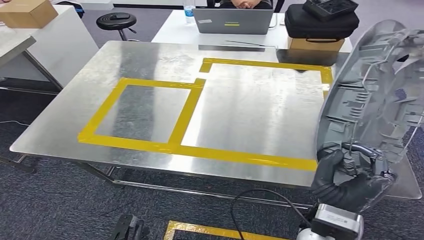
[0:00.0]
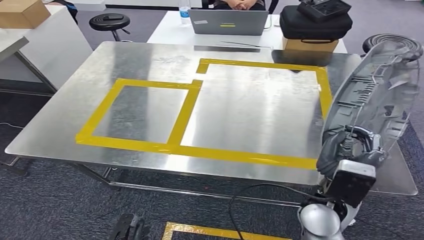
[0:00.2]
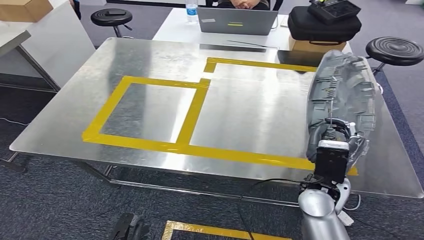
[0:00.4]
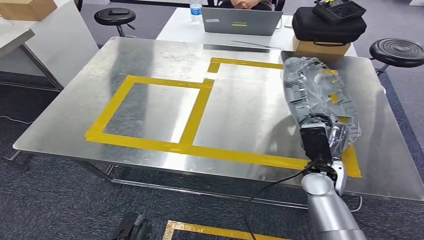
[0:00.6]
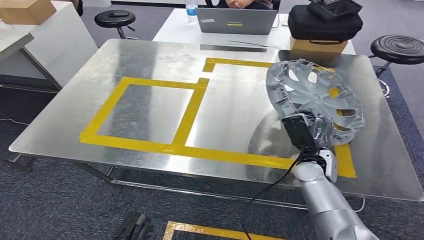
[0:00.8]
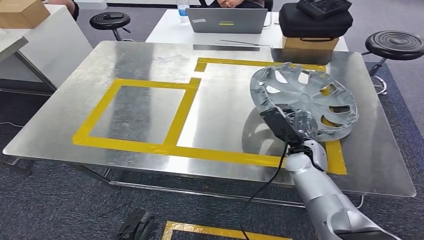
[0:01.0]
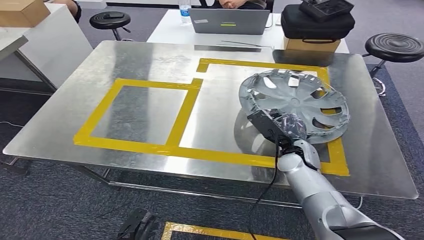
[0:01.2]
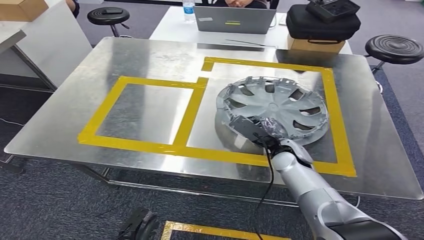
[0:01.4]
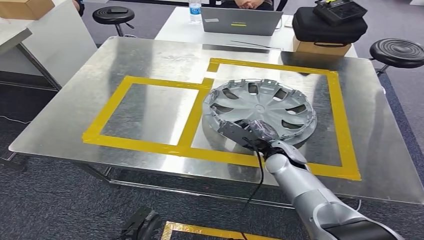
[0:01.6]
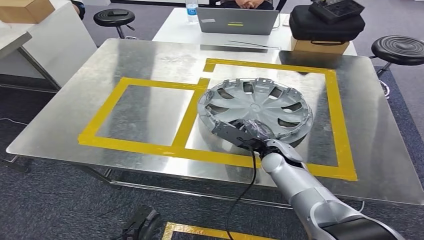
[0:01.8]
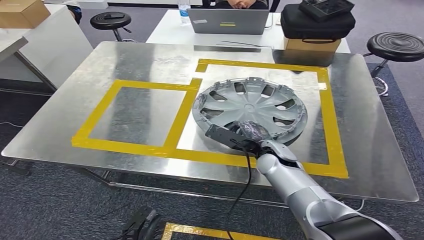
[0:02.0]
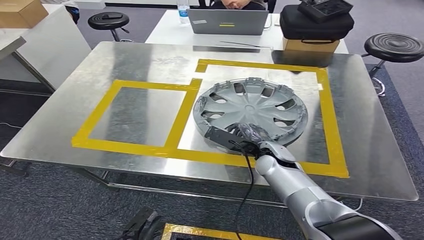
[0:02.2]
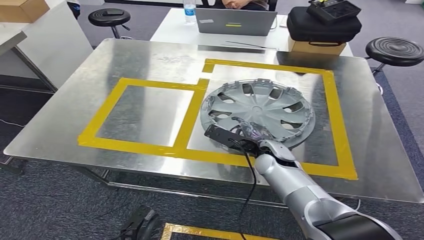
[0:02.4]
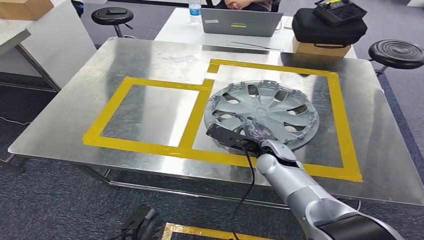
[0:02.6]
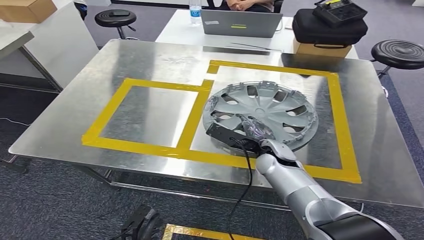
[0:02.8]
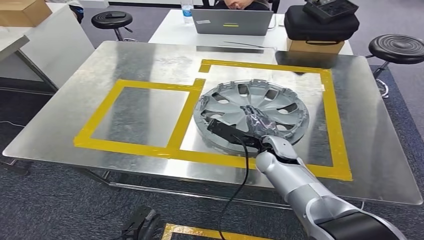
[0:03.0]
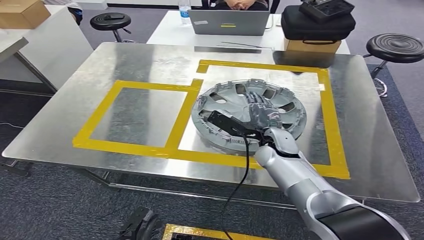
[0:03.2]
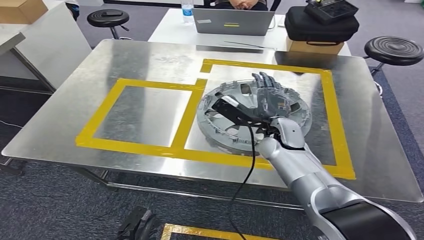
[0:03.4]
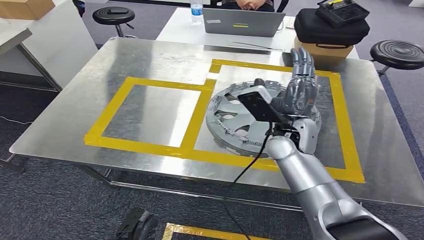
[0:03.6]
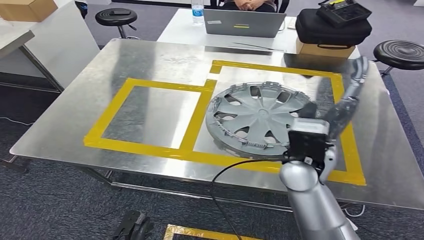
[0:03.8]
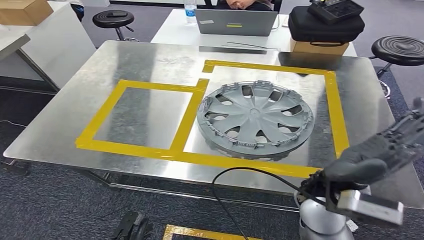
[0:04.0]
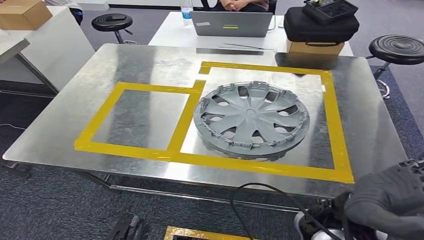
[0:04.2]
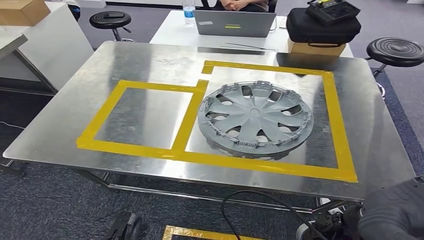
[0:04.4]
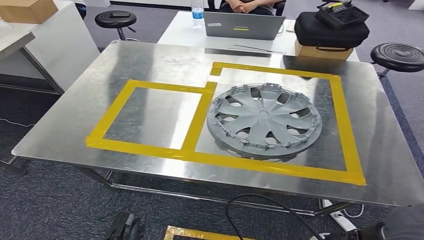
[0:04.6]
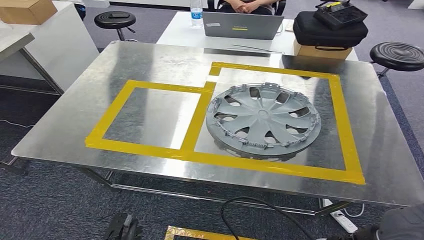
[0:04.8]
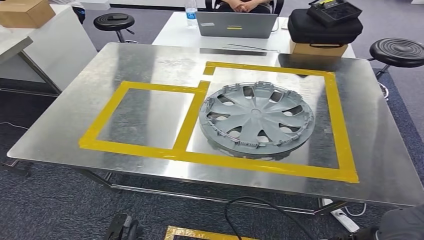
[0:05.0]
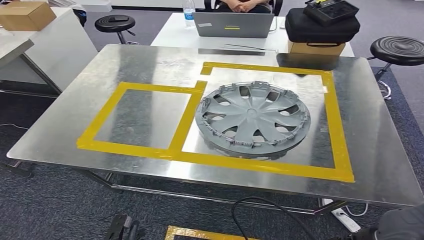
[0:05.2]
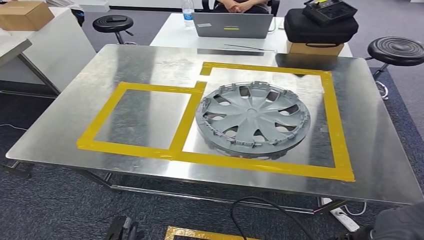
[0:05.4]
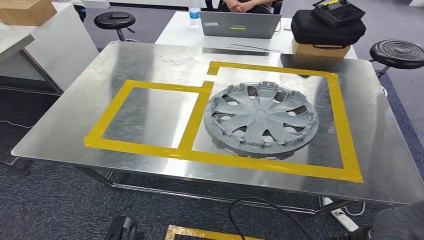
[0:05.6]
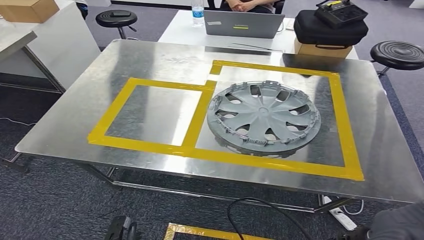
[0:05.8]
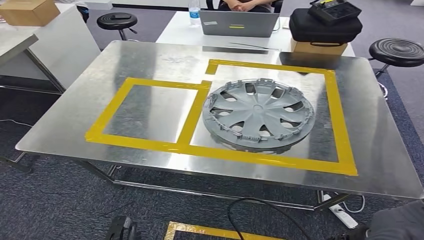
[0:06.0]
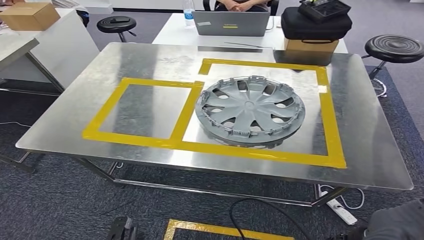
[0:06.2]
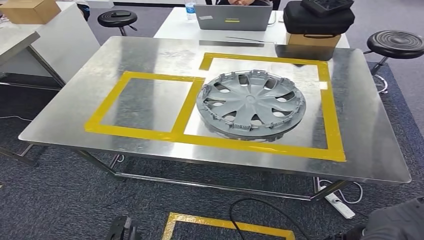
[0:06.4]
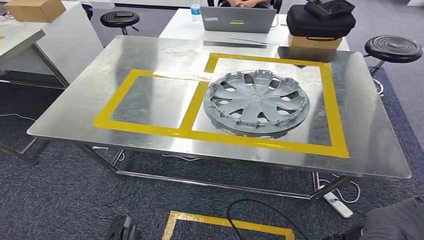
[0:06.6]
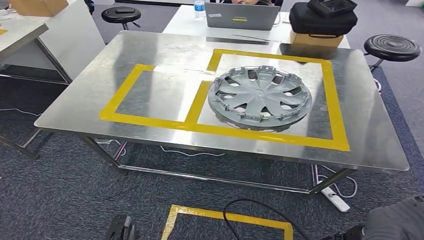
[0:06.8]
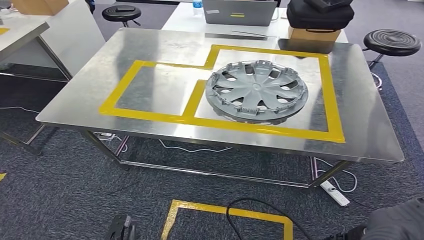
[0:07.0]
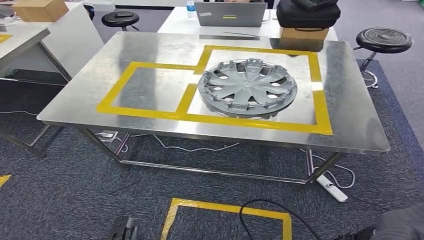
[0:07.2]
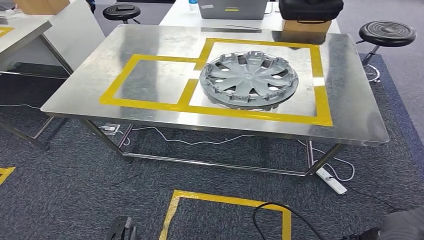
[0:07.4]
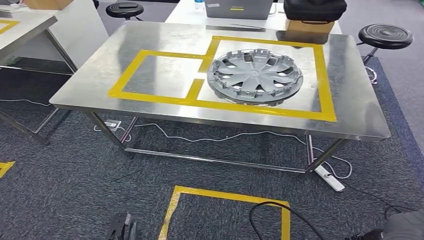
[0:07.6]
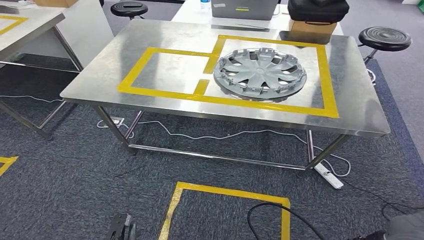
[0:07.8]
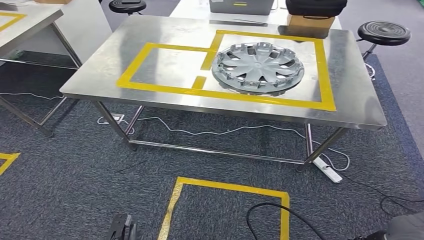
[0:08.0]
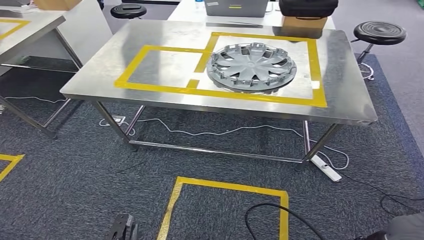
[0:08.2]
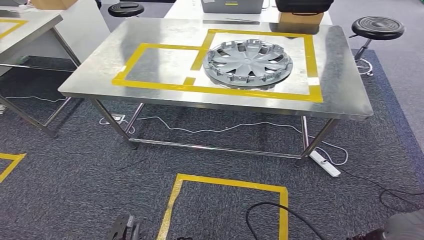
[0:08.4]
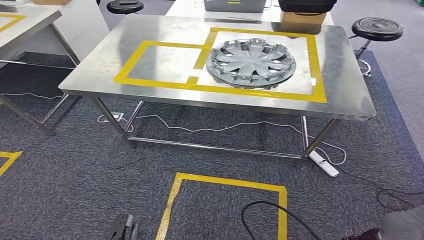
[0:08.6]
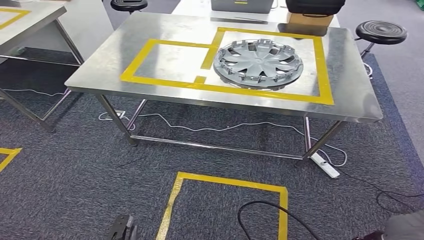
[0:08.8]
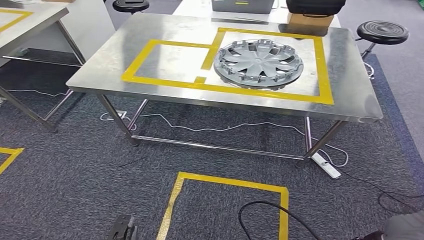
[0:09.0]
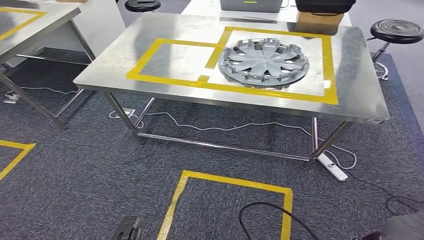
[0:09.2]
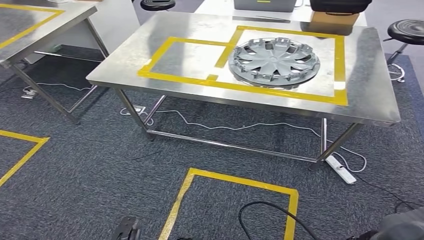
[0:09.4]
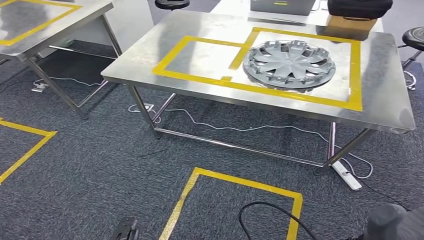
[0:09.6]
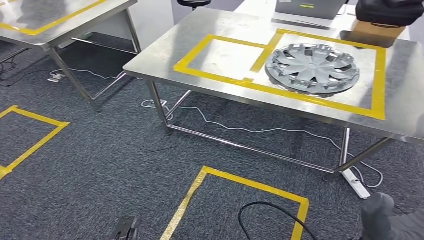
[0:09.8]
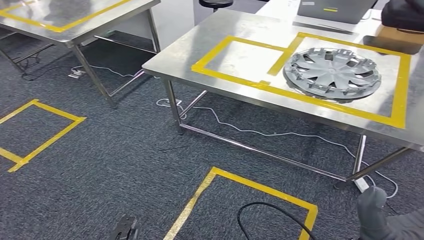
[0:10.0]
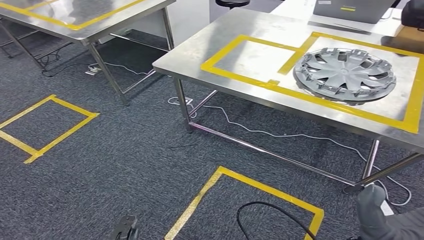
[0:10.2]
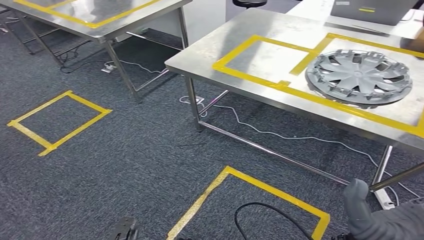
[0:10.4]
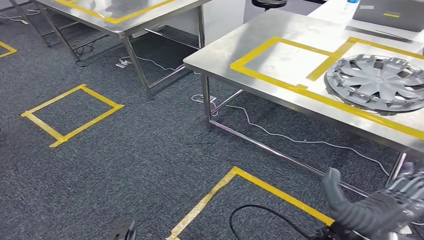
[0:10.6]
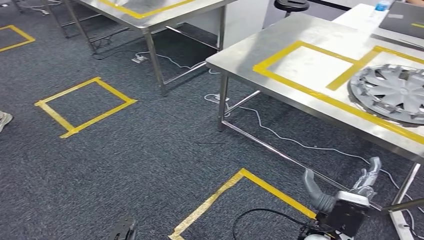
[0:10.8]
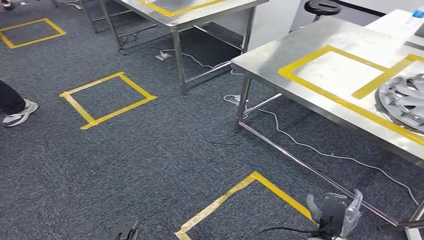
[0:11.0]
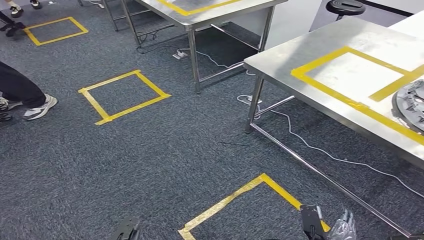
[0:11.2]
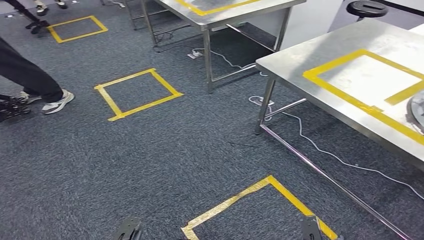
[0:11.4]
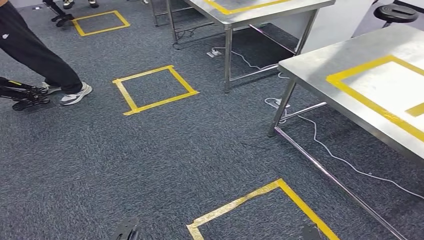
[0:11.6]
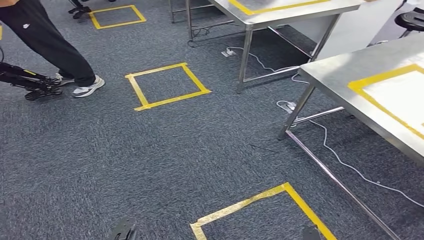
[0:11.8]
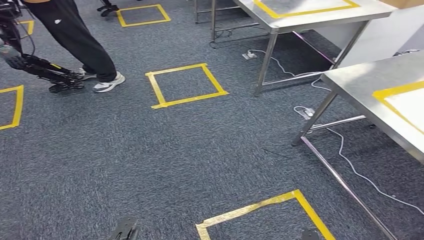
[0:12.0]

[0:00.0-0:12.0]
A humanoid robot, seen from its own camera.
Step, 0:00.0 to 0:04.2: Insert the small parts into the corresponding holes on the workbench.

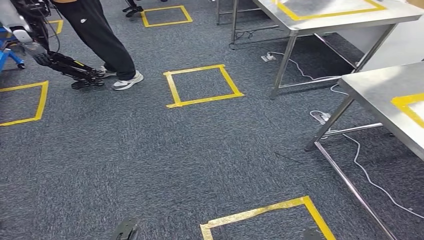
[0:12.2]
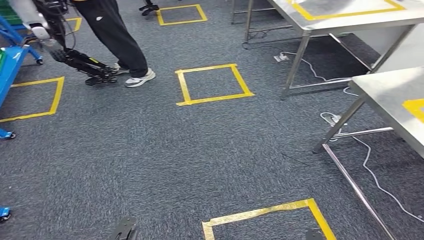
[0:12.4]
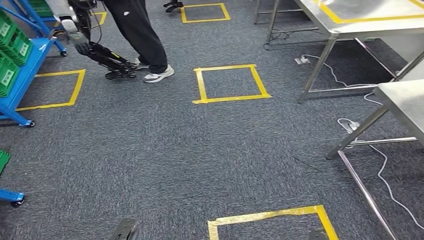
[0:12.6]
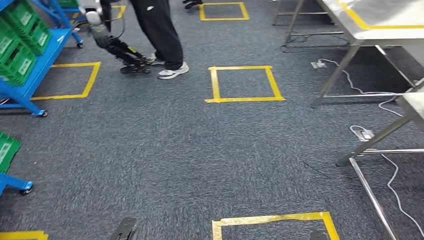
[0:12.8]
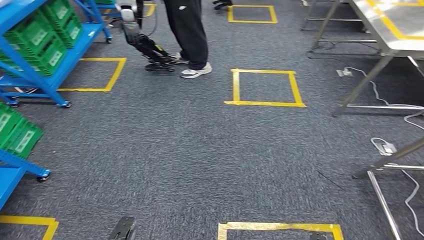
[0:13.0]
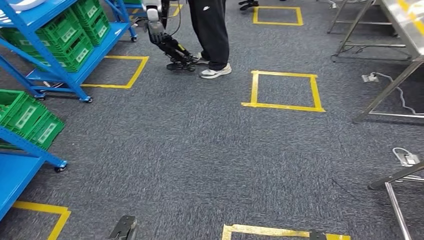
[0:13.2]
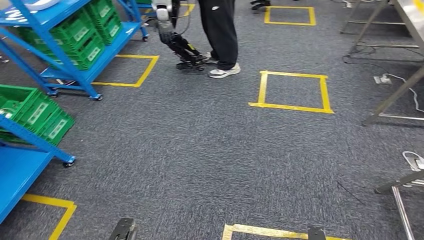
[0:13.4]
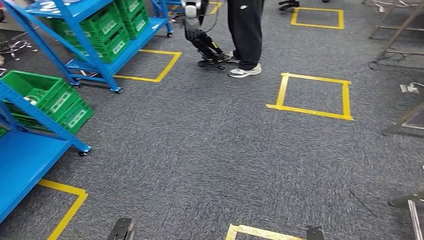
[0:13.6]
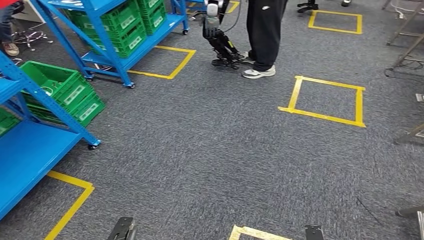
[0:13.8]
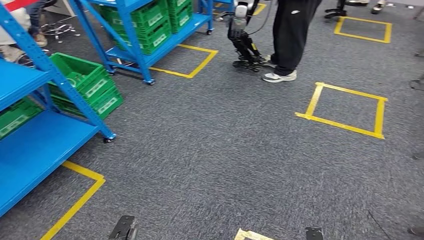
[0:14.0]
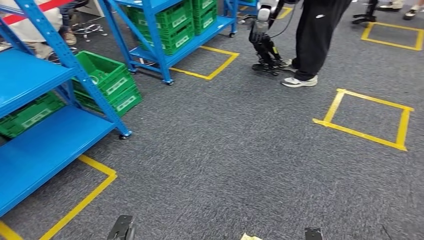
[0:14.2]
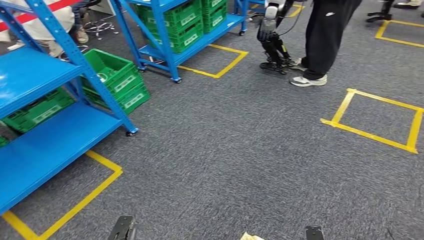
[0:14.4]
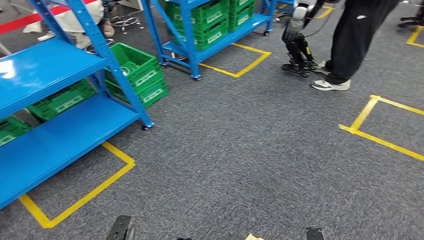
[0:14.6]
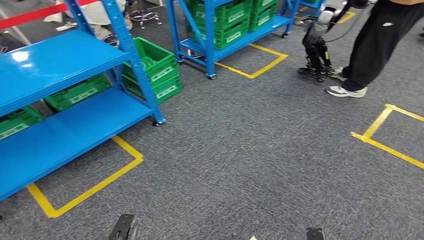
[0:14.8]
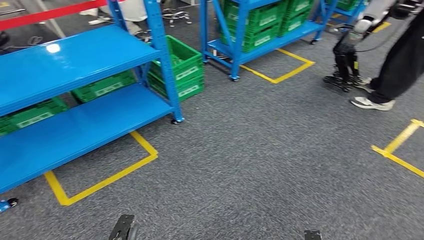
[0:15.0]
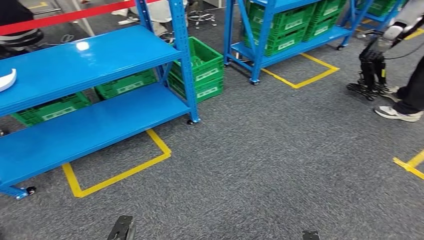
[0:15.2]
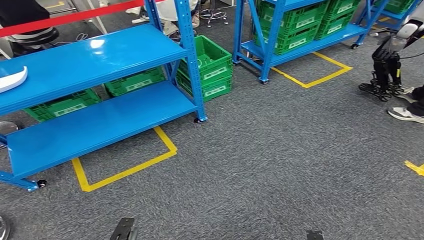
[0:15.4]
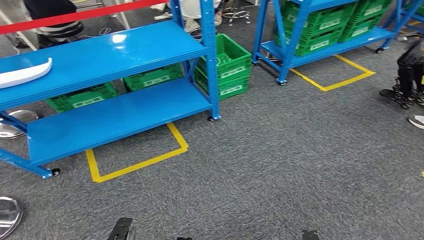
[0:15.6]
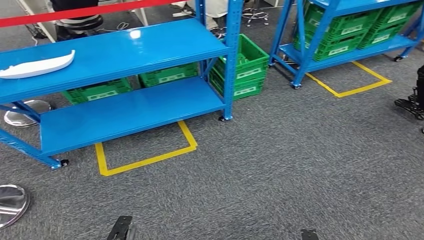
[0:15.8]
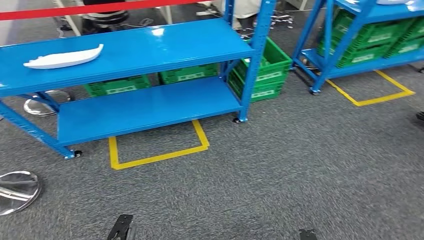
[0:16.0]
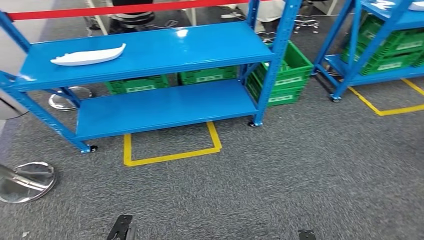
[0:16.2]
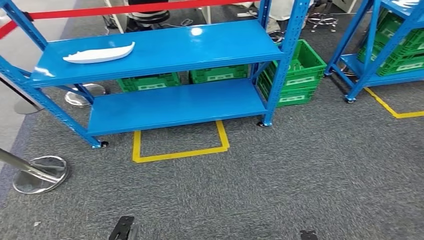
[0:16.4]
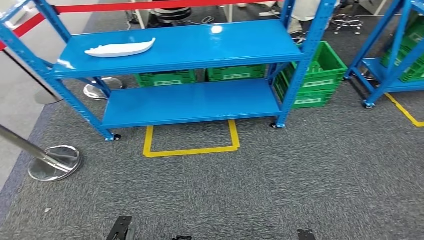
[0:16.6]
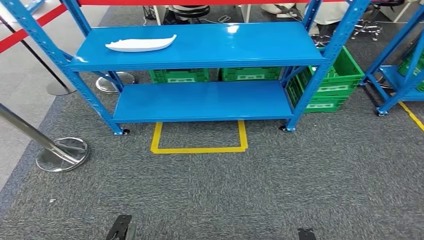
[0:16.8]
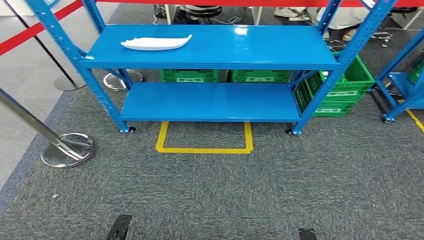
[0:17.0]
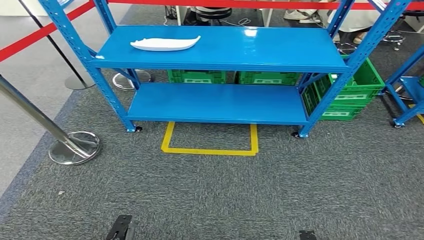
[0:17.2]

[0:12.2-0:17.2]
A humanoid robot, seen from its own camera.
Step, 0:12.2 to 0:17.2: Move to the initial position at the workbench.
